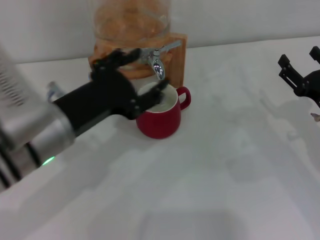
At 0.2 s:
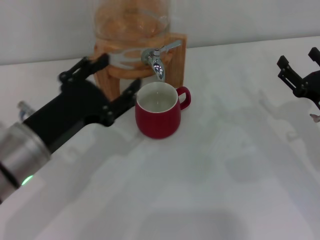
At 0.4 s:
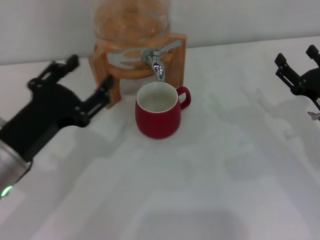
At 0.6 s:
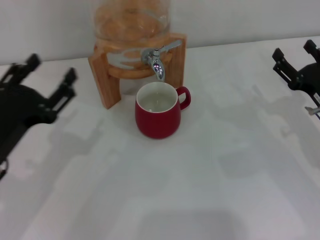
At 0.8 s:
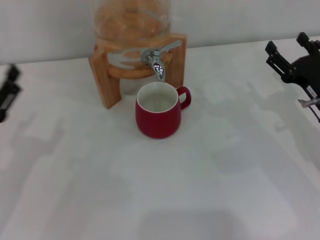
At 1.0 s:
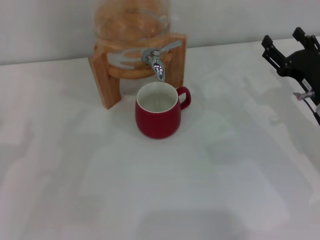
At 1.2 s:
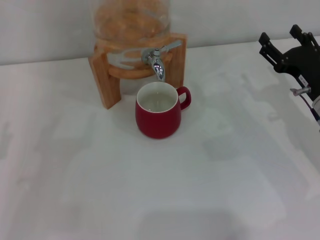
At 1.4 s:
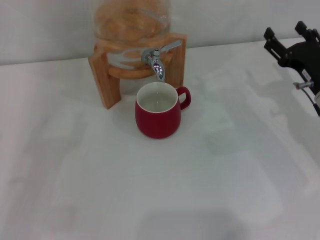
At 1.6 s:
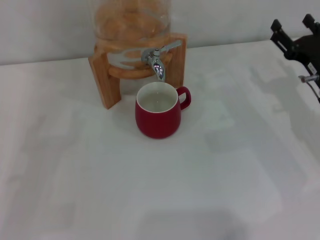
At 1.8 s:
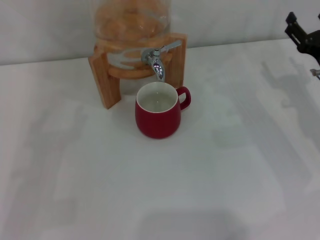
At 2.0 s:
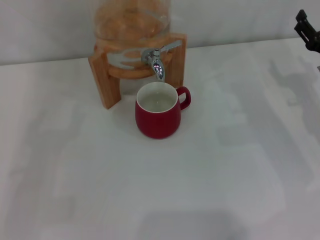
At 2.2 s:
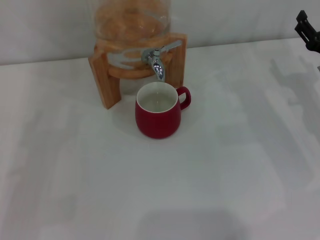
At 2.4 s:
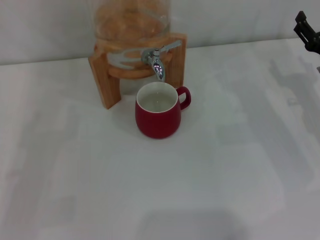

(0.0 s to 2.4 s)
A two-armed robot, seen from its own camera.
Task of the whole recording: the right gripper pick up the red cup and place it horizontally under the faucet, the left gripper turn on the faucet to fill the cup, and then turn off the faucet.
0.0 s - 1.2 s: The right gripper moves roughly 5 cm. The left gripper heads to the left and downward, covering approximately 20 cm.
1.2 s - 2.4 s: There are only small adjustments of the grippers.
